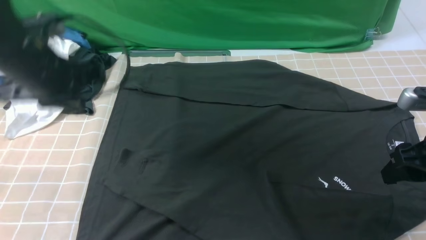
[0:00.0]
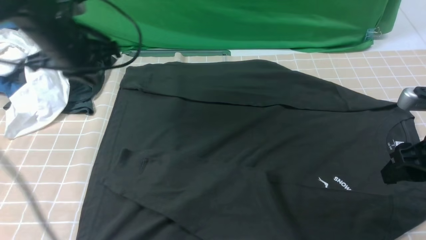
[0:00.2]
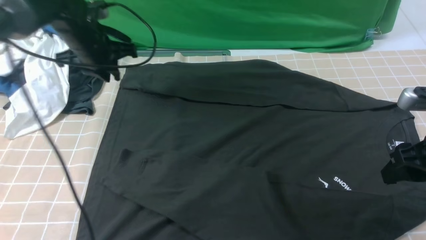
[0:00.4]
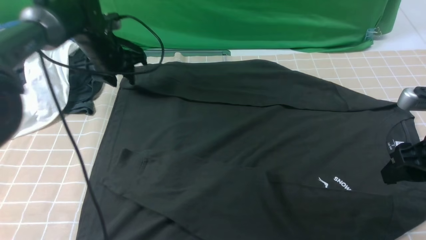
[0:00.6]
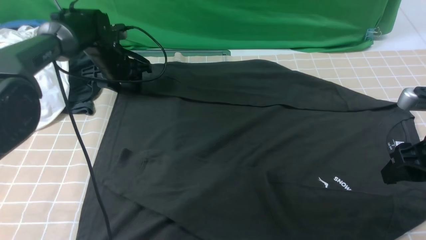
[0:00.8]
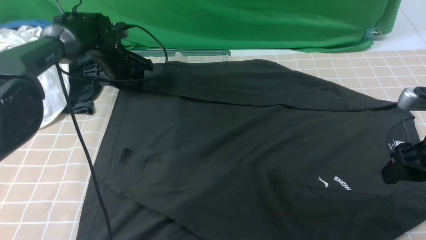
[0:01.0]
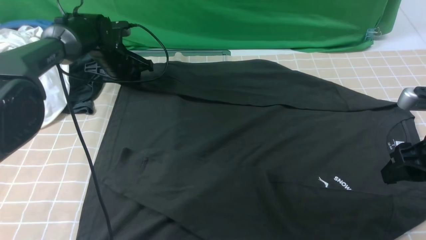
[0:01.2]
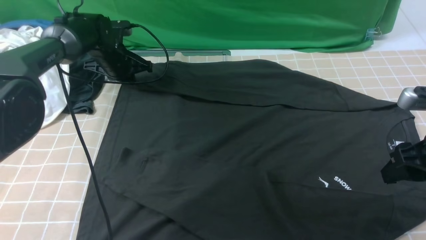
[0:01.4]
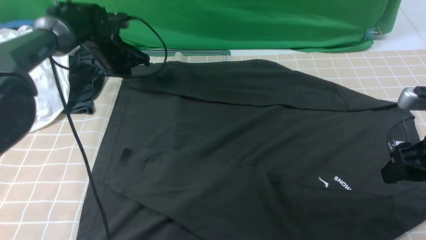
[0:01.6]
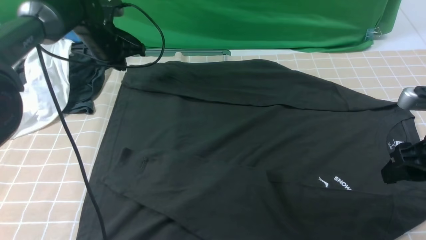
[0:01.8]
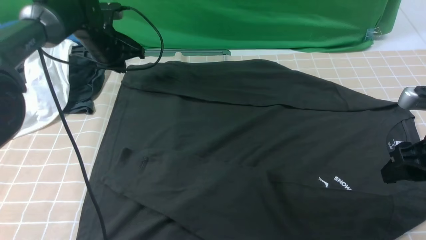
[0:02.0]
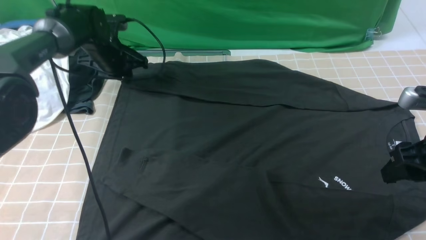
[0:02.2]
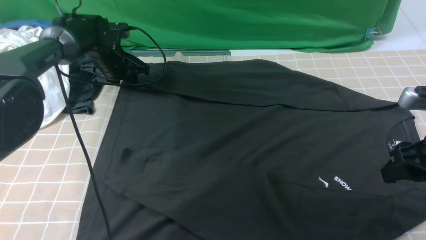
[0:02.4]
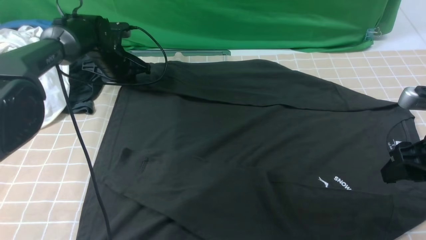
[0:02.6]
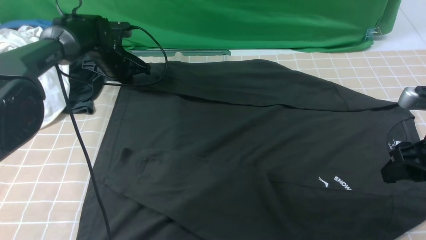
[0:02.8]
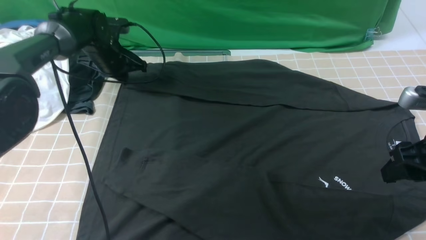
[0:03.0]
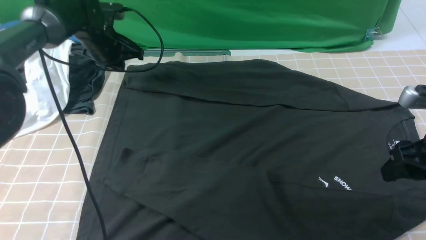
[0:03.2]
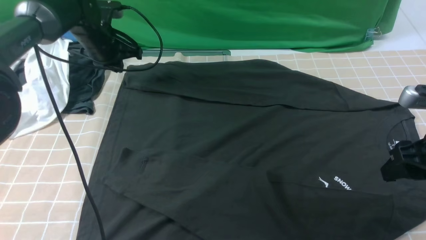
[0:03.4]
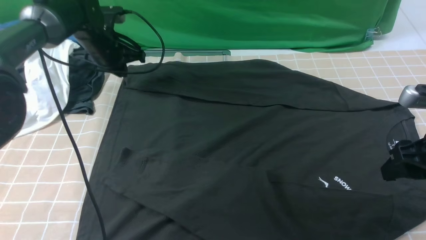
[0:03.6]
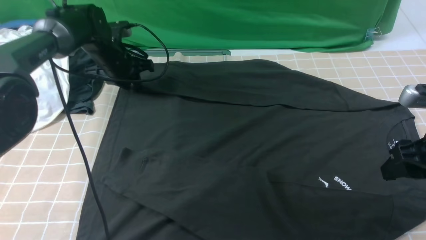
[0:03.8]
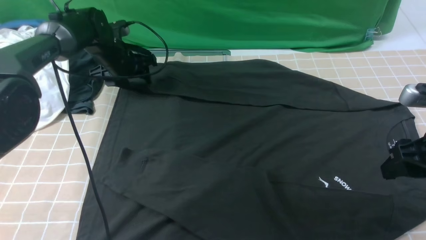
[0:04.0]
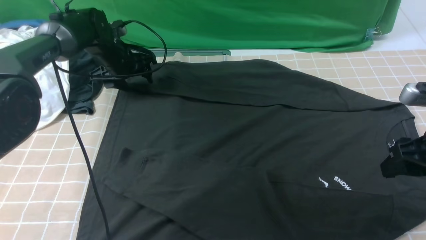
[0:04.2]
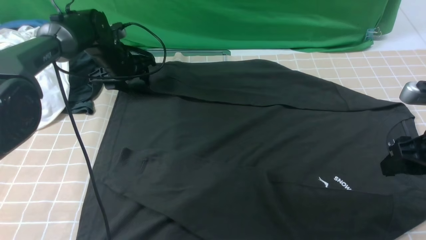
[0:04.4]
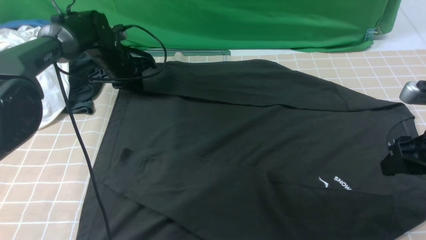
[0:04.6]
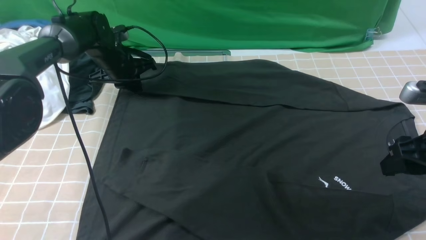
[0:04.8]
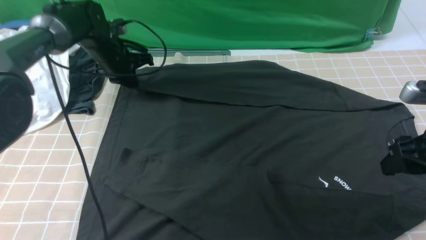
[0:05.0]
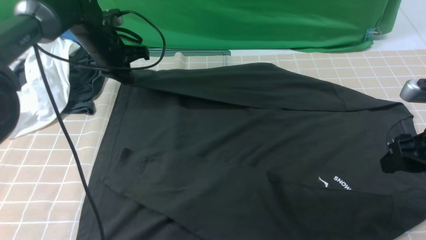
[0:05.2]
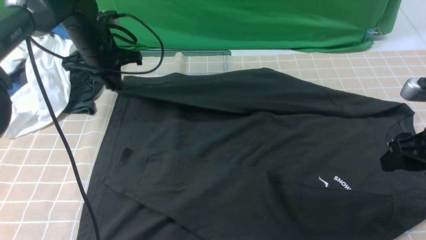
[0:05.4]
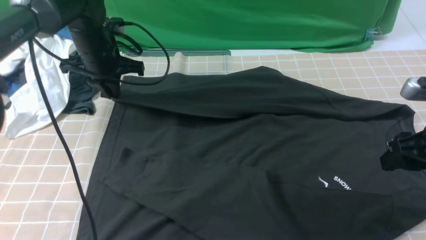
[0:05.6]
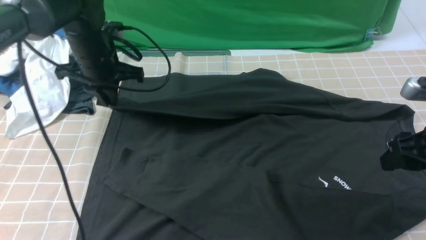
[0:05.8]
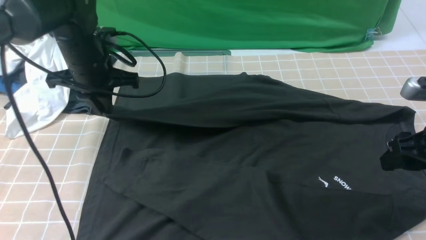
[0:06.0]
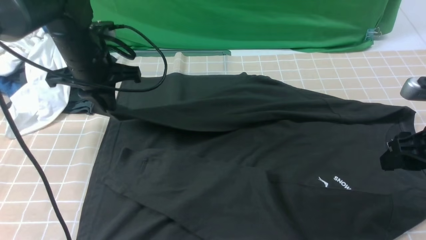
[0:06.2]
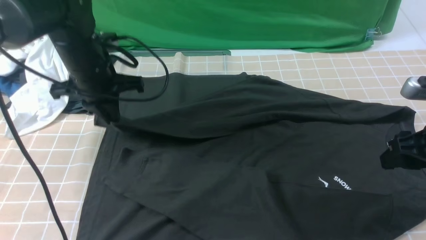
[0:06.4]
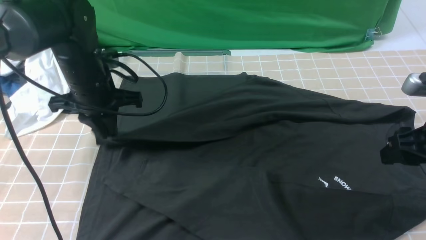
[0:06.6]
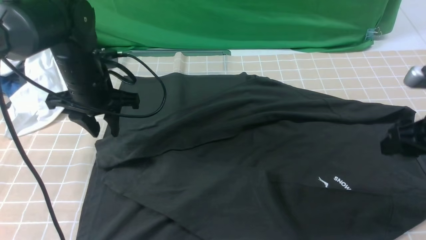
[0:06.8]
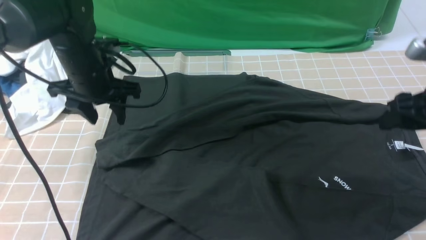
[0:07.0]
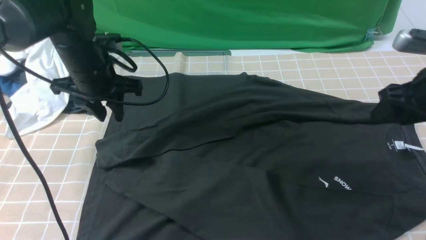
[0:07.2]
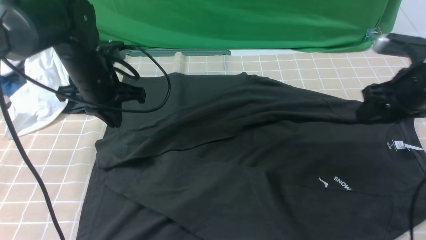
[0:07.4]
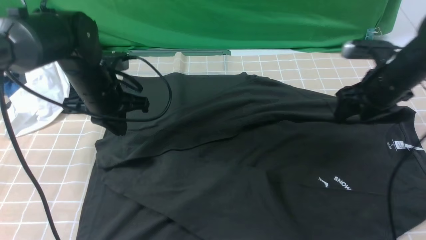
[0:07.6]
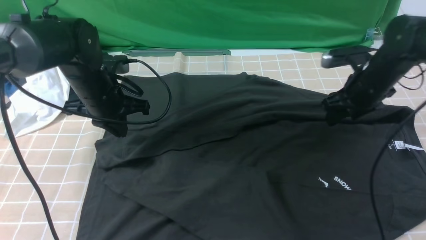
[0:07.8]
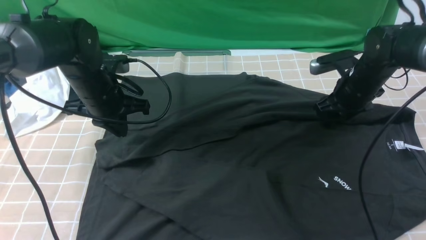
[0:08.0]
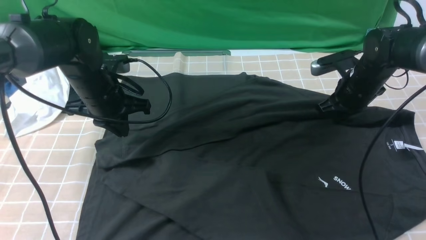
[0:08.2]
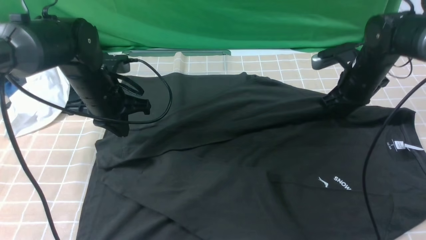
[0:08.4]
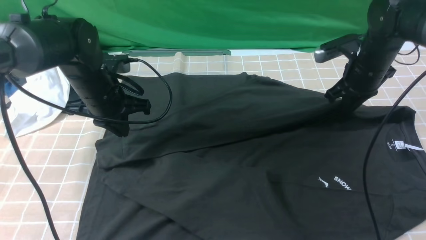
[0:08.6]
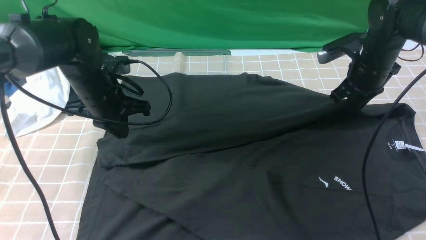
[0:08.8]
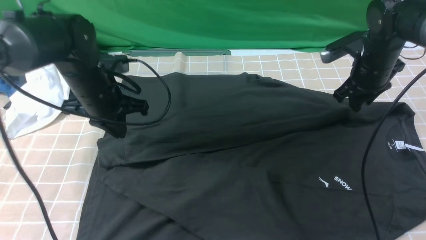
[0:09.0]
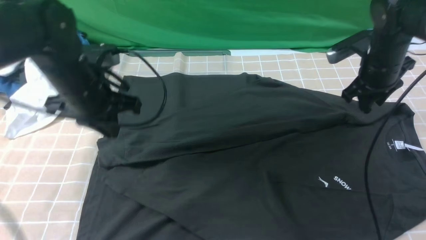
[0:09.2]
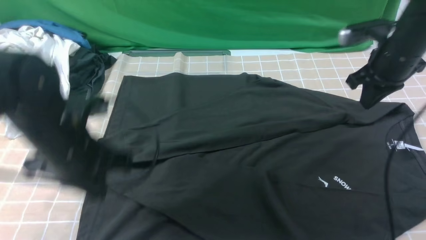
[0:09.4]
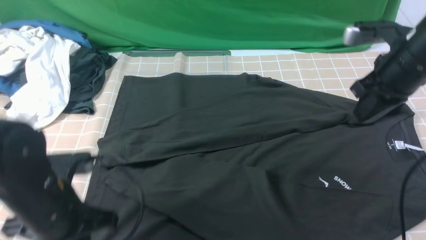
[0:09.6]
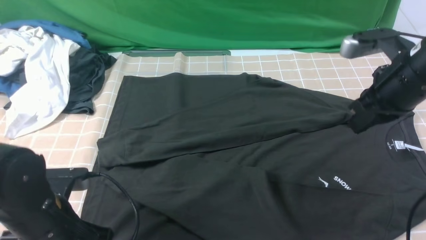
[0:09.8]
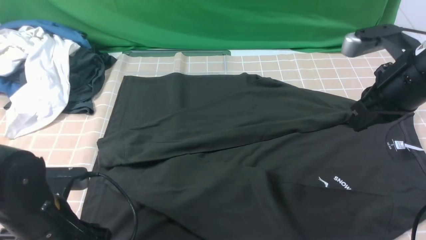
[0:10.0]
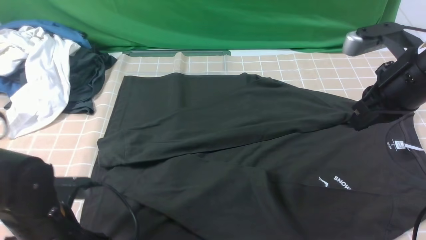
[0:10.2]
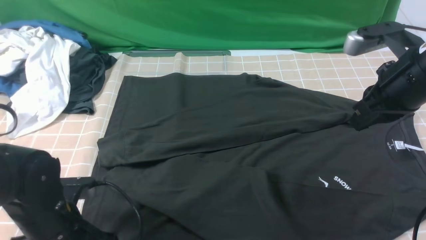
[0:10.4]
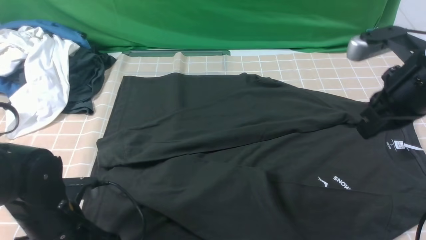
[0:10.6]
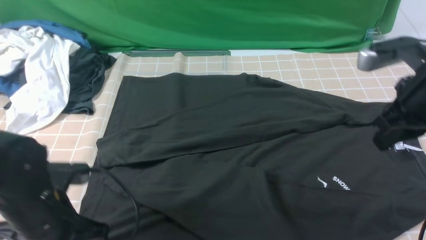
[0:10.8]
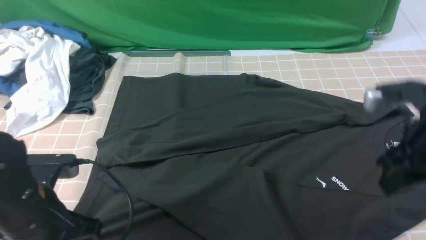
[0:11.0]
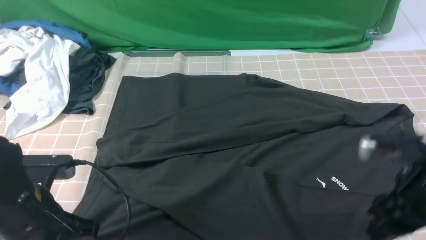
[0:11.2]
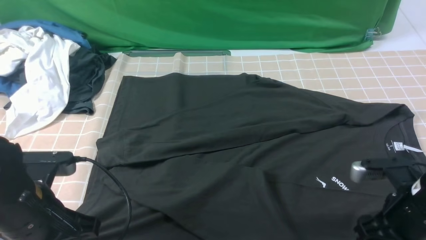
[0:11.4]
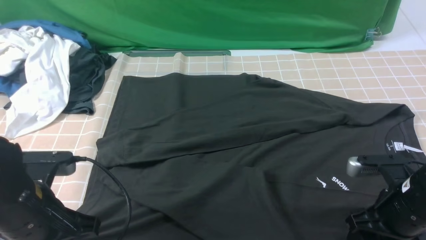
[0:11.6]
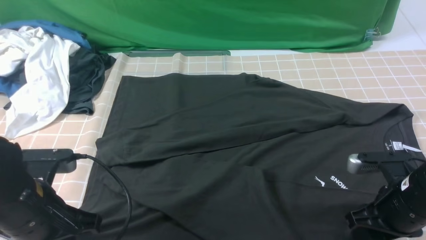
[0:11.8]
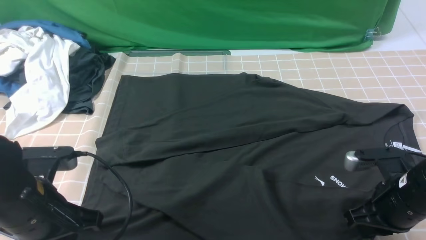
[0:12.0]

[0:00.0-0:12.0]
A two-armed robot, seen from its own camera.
Step, 0.0 to 4.8 s: use the left arm to clamp the cuff farthest from it.
Step, 5.0 to 6.6 s: use the left arm to drag and drop the cuff onto the cuff closest to the left arm.
Step, 6.8 to 11.8 s: use both arms simultaneously to clamp the lower edge of the clothing fabric.
0.0 to 1.6 s: The left gripper is displaced forward and downward by some 20 cm, and opens, then closes again.
1.6 to 3.0 s: The left gripper opens, then closes once more.
3.0 to 4.4 s: The left gripper opens.
4.4 to 6.0 s: The left gripper shifts some 15 cm backward and upward, and closes its fingers.
6.0 to 7.6 s: The left gripper opens, then closes again, while the right gripper shifts approximately 15 cm forward.
7.6 to 9.0 s: The right gripper closes up.
9.0 to 10.4 s: The right gripper travels backward and upward by some 15 cm, and closes, while the left gripper travels backward and downward by roughly 20 cm, and opens its fingers.
10.4 to 12.0 s: The left gripper is displaced upward by approximately 5 cm, and closes up. Meanwhile the right gripper moves downward and backward, roughly 15 cm, and opens, then closes again.

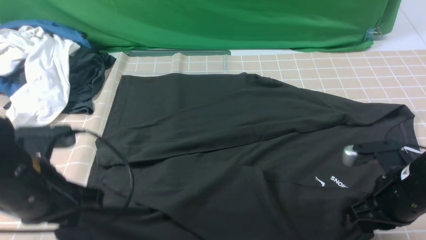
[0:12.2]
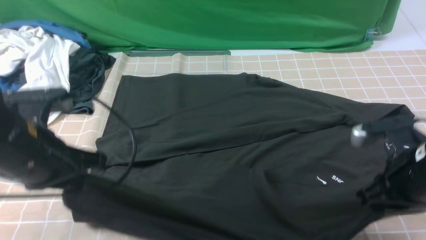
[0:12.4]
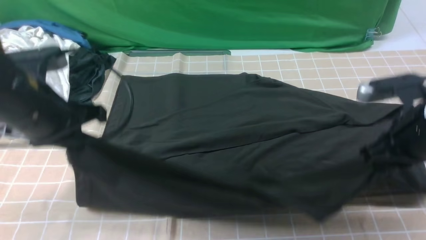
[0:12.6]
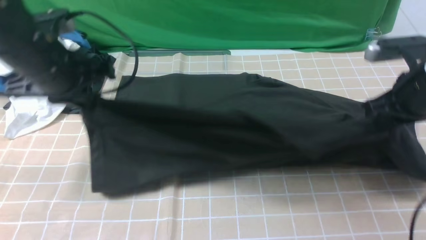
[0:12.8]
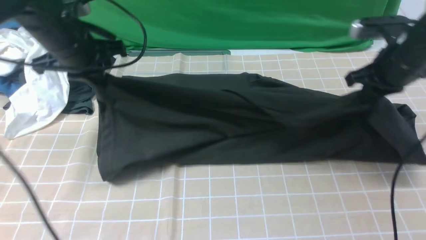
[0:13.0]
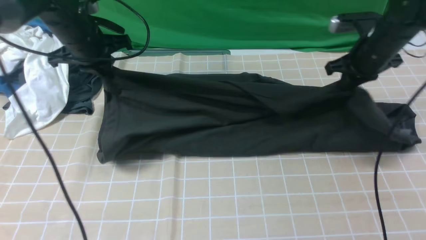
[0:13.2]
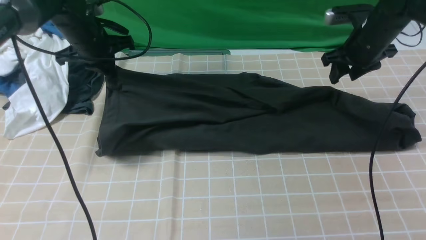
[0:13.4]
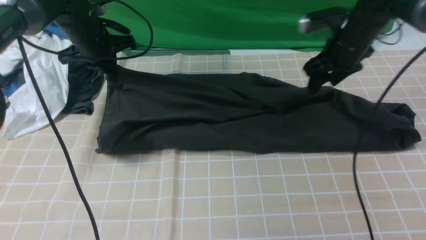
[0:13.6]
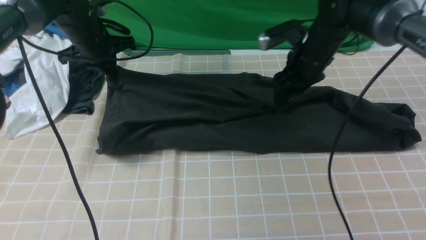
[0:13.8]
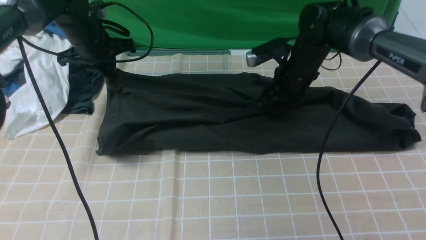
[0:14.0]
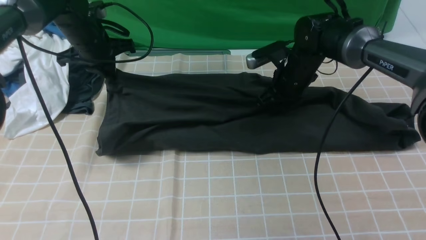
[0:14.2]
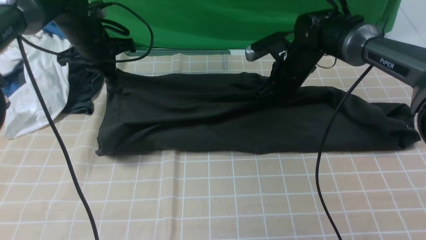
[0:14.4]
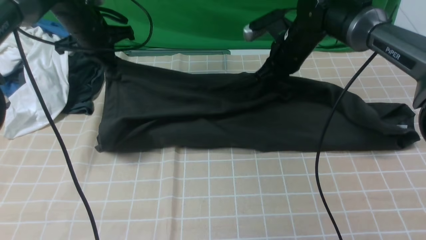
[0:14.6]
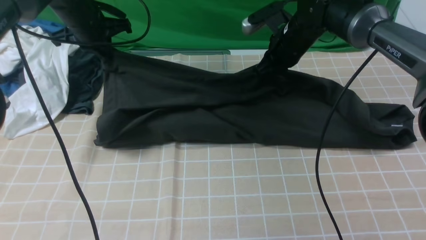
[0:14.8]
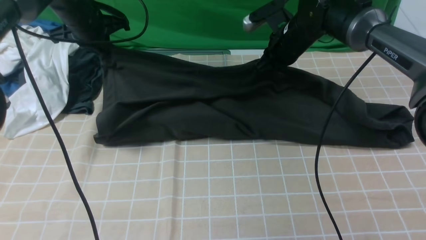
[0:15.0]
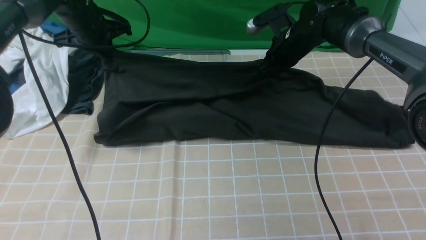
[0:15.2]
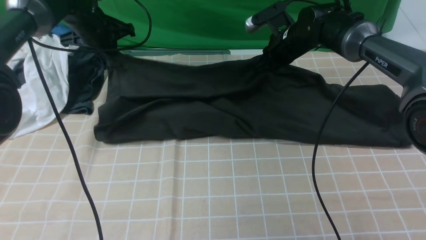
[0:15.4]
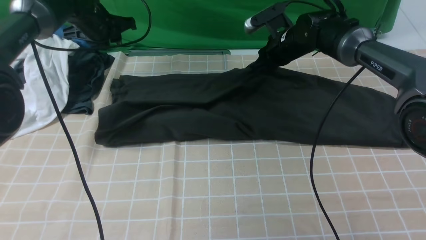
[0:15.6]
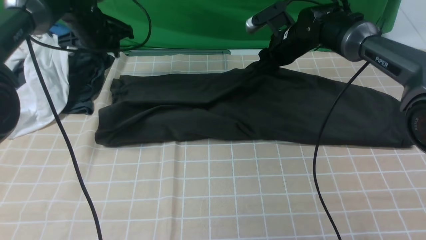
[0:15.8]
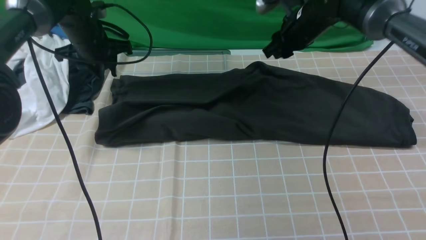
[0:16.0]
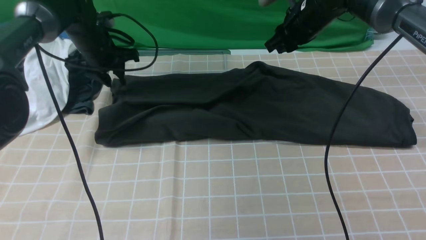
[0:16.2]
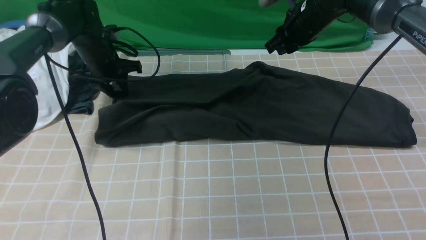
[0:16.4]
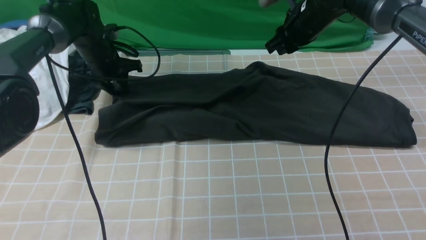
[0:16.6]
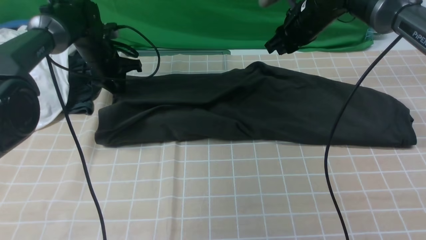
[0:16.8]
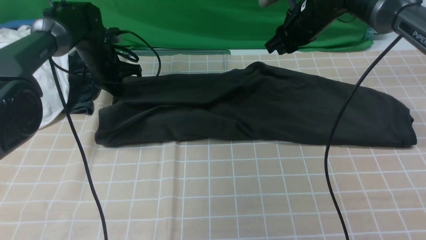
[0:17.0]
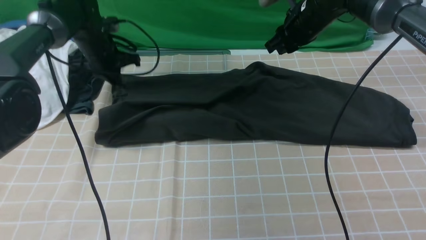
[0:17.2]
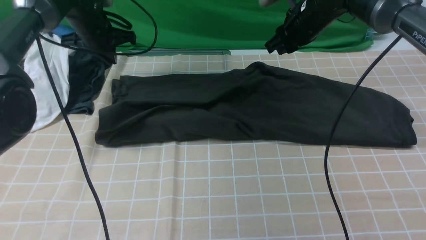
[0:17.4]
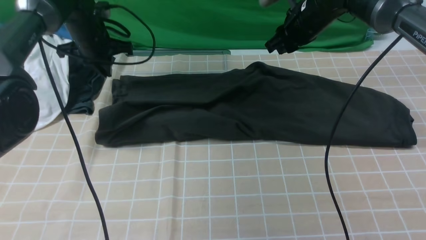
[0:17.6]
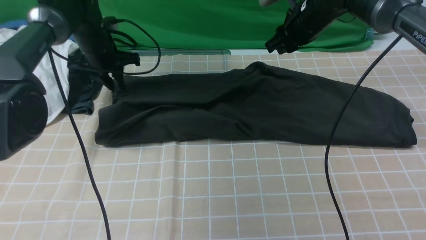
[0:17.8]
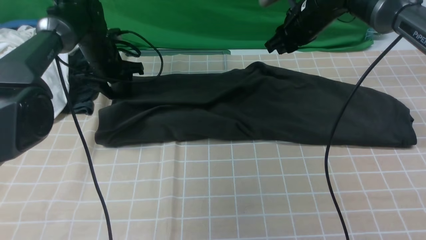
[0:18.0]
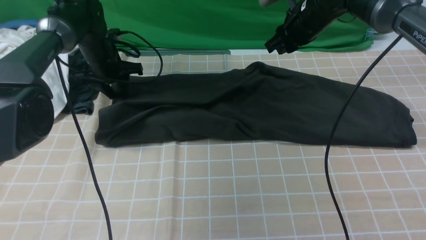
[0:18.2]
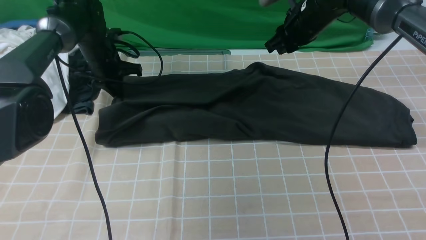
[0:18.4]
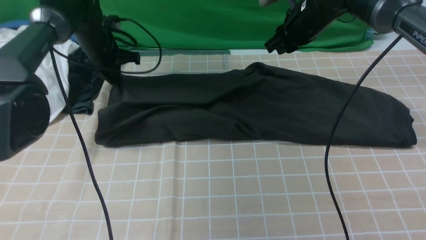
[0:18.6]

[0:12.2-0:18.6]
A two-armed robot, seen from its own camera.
Step, 12.2 to 15.6 s: use both arms to drag the lower edge of the fabric forward and fold it over the upper edge.
12.2 to 13.8 s: Both grippers travel together forward, some 25 cm. The right gripper opens its fingers.
13.8 to 15.4 s: The right gripper moves forward, approximately 5 cm, and closes its fingers.
15.4 to 17.0 s: The left gripper shifts approximately 5 cm downward. Meanwhile the right gripper goes approximately 5 cm upward.
17.0 to 18.6 s: The left gripper swings up and down, about 5 cm each way, with 2 reversals, and opens, then closes again.
